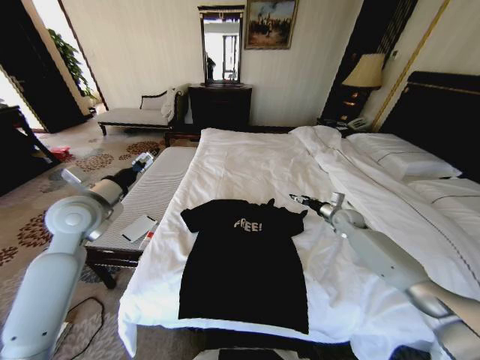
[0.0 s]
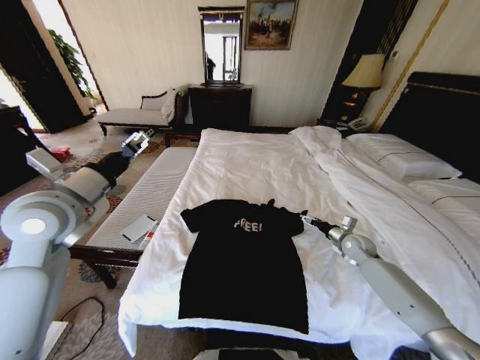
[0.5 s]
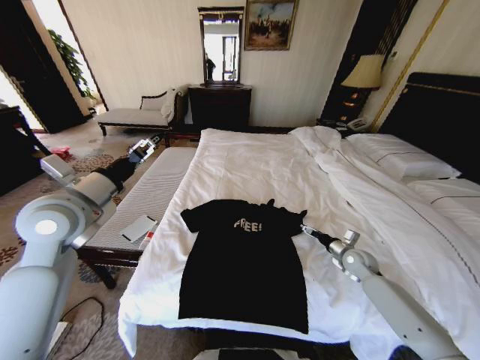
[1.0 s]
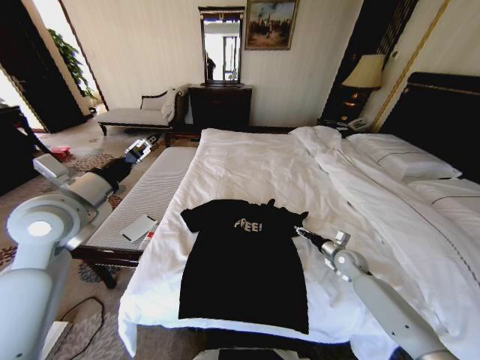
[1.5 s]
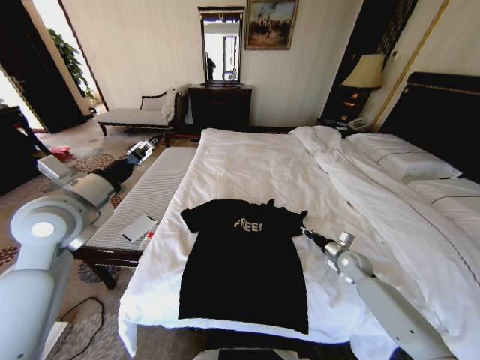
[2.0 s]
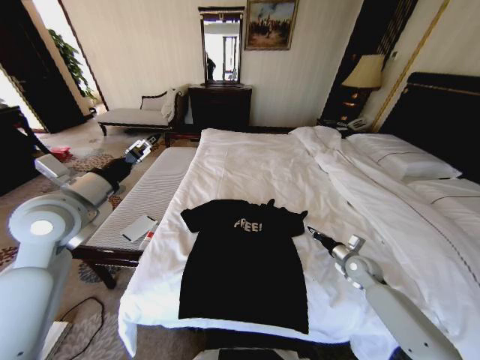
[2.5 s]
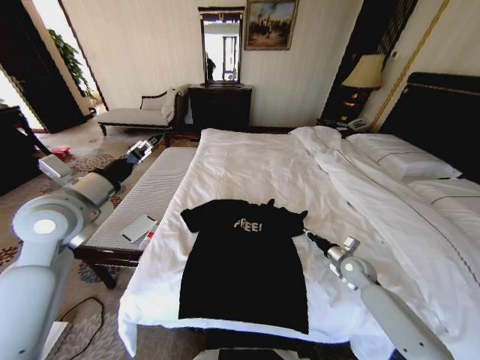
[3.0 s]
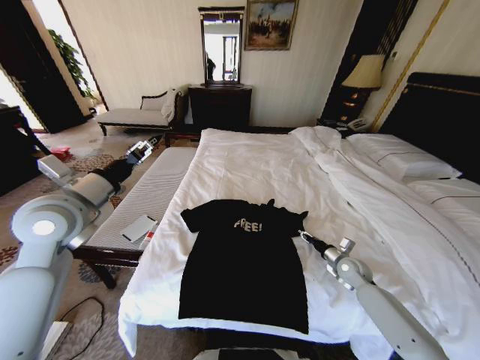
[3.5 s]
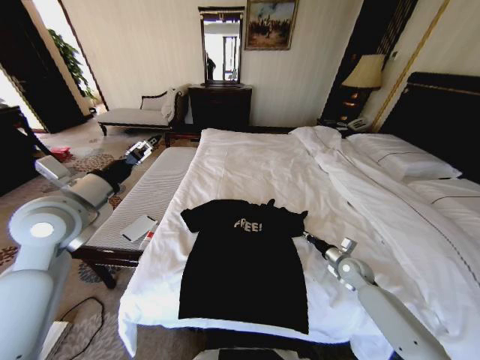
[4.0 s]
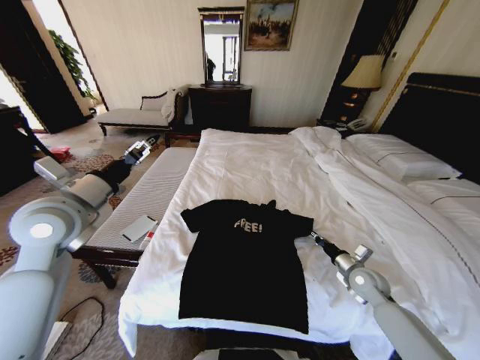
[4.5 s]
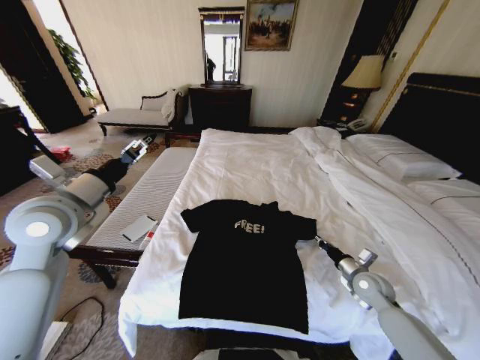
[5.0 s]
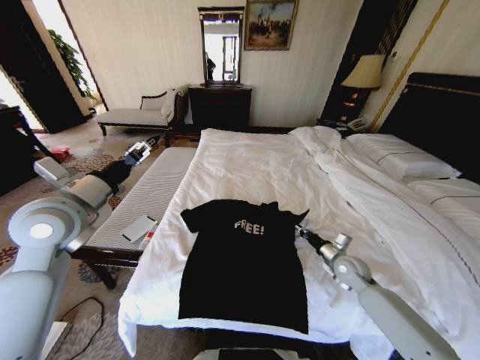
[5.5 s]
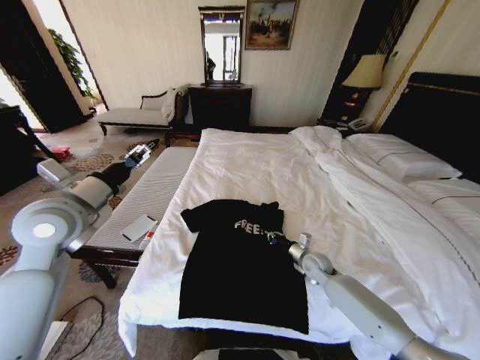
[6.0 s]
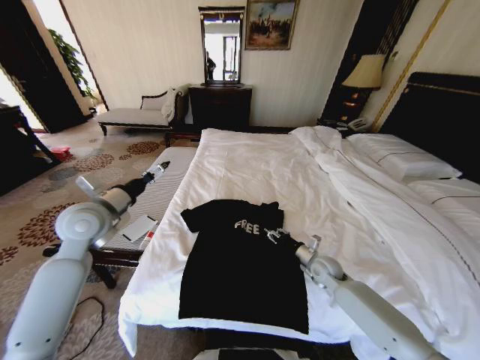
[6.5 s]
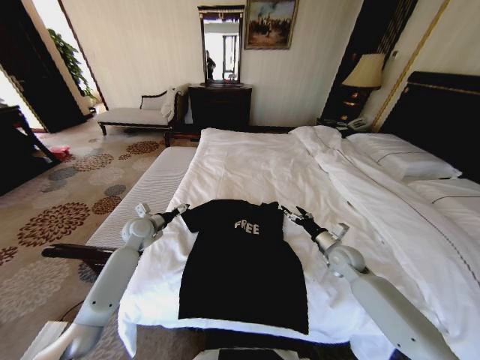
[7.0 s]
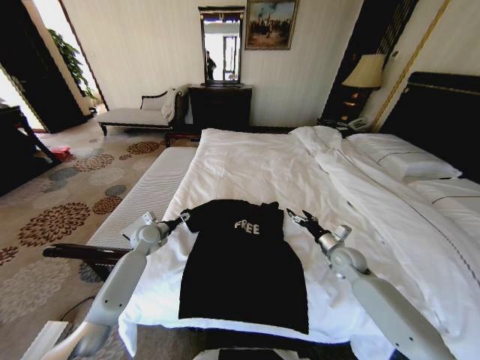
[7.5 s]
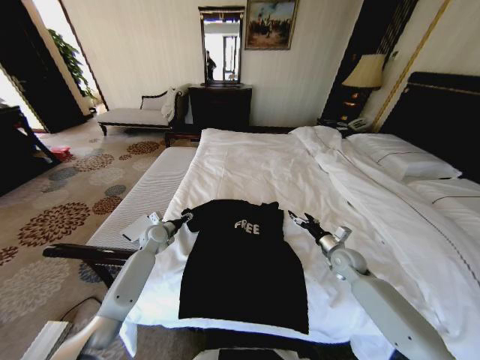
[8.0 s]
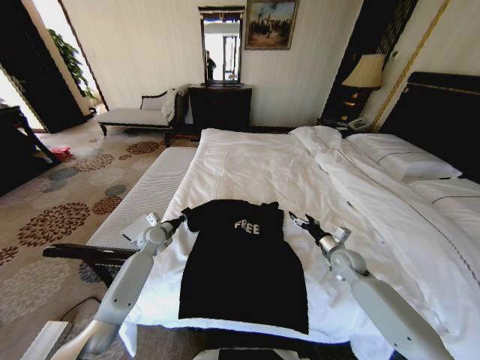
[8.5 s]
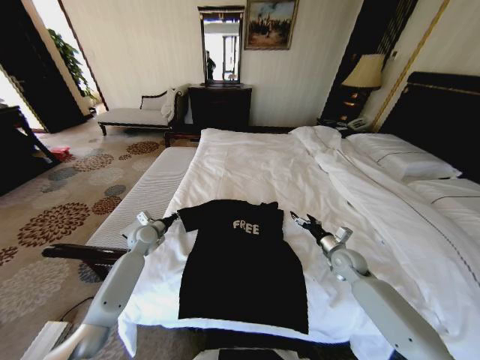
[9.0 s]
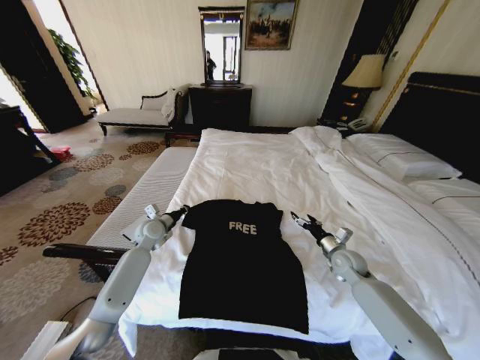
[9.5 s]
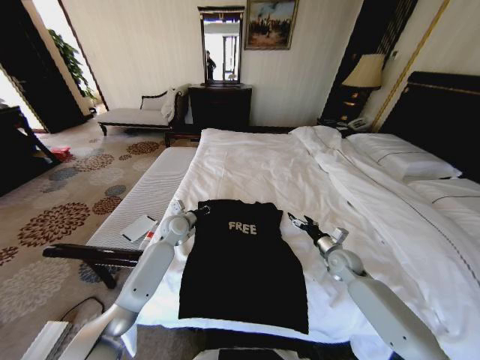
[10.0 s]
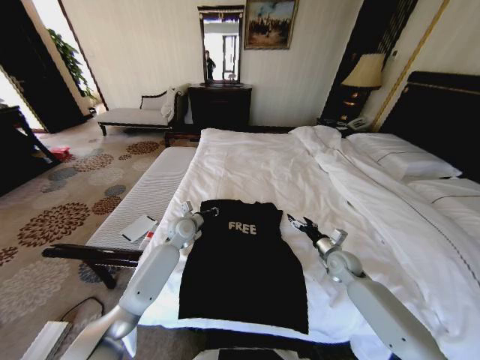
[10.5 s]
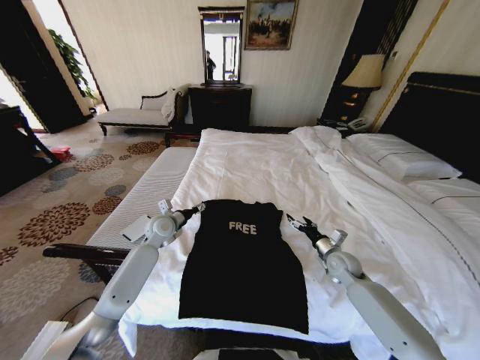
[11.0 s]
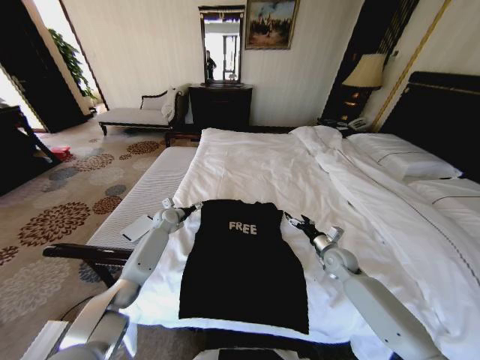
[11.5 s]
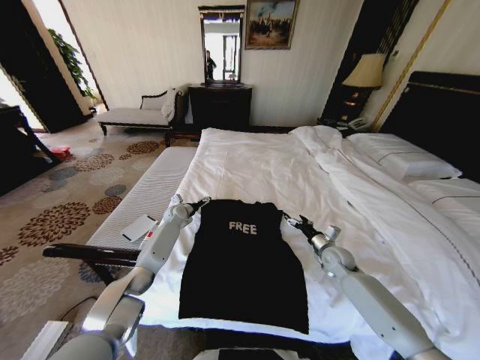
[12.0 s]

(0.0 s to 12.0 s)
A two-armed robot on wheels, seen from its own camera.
Task of the whole recording: Fold the clothes on the bed.
0.0 s - 2.0 s: The right gripper goes some 15 cm backward and downward, and closes up. Meanwhile the left gripper moves about 5 cm.
2.0 s - 4.0 s: There are only small adjustments of the grippers.
4.0 s - 6.0 s: The right gripper goes about 10 cm to the left.
6.0 s - 8.0 s: The left gripper travels downward and forward by roughly 30 cm, while the right gripper is displaced to the right by roughly 10 cm, and opens up.
8.0 s - 10.0 s: The left gripper is displaced to the right by approximately 10 cm, and closes.
10.0 s - 12.0 s: The left gripper is displaced forward and downward by some 10 cm, and opens.

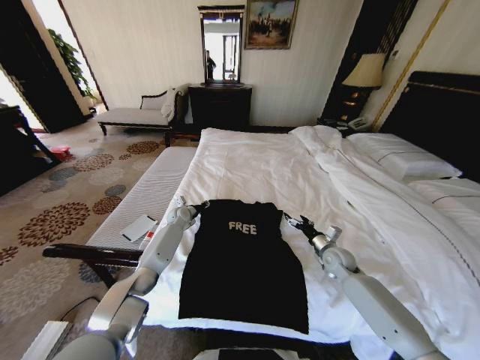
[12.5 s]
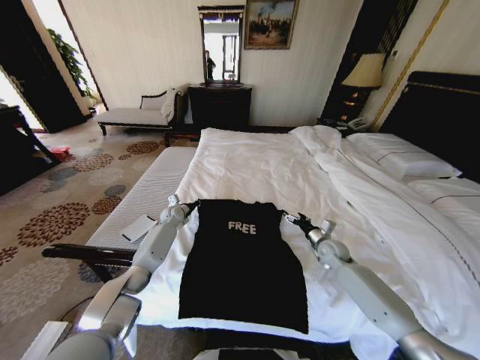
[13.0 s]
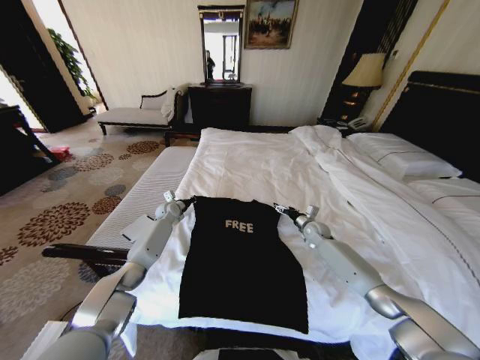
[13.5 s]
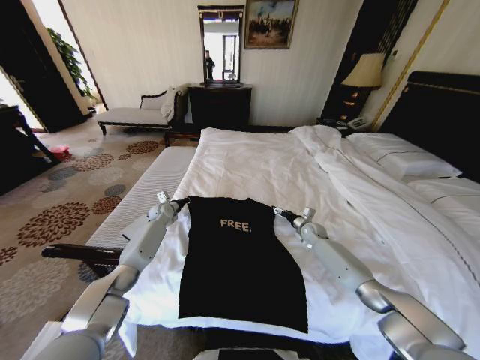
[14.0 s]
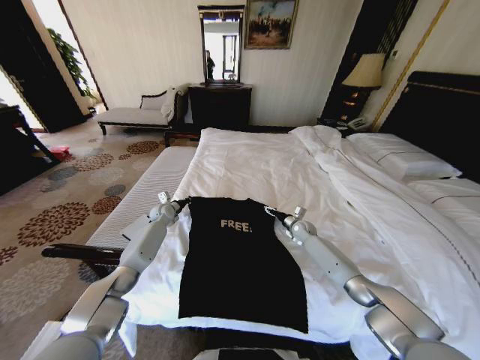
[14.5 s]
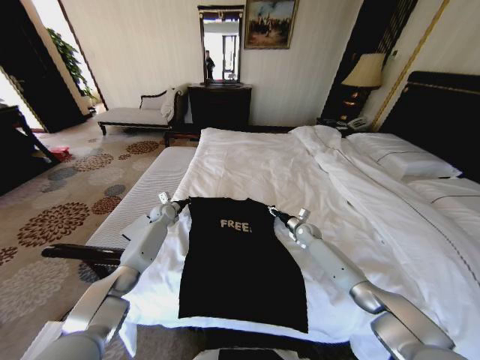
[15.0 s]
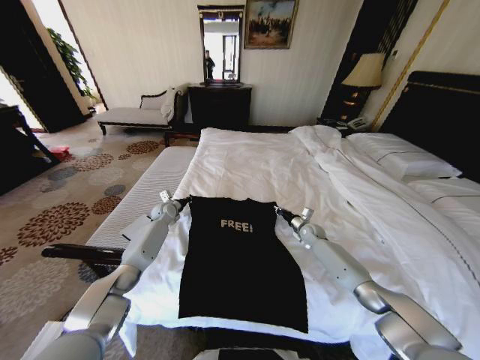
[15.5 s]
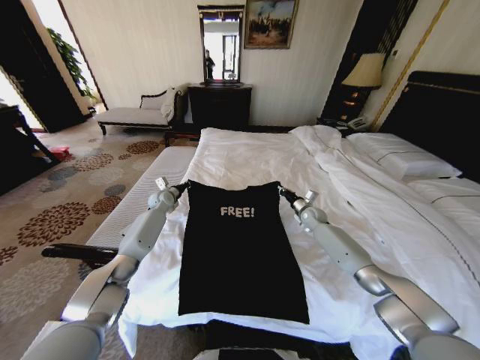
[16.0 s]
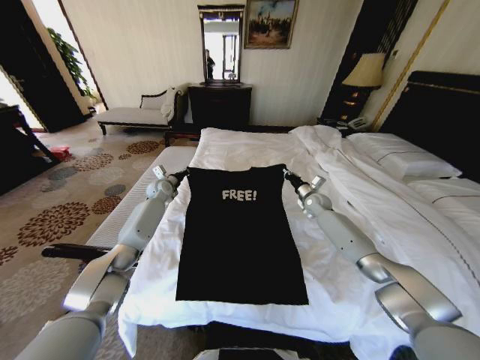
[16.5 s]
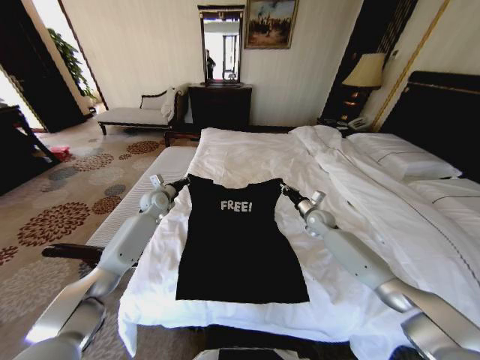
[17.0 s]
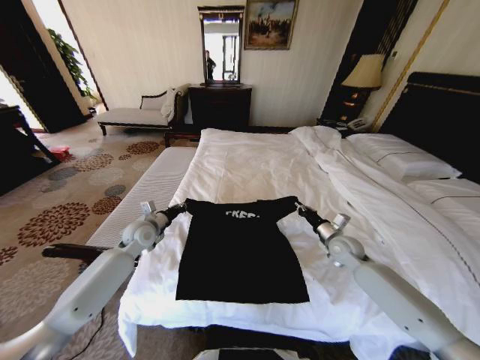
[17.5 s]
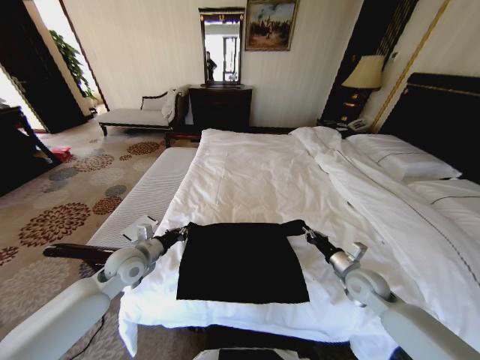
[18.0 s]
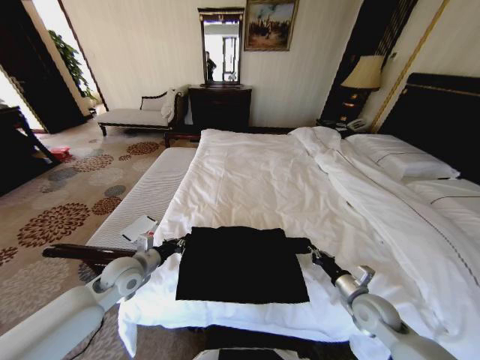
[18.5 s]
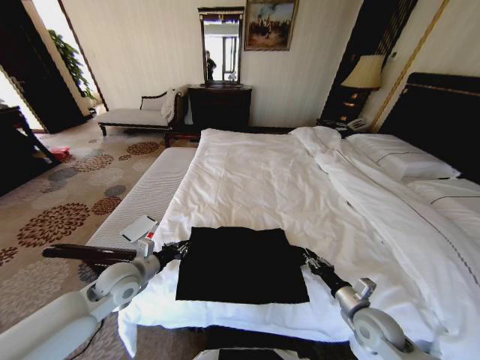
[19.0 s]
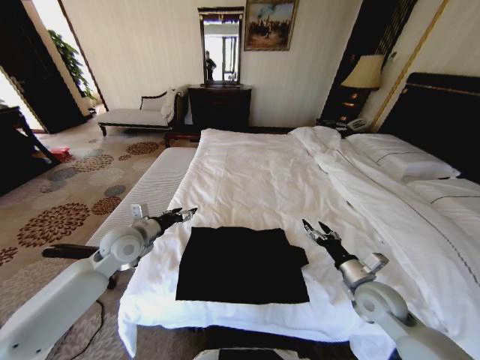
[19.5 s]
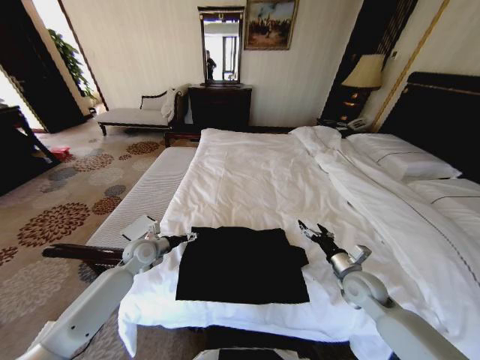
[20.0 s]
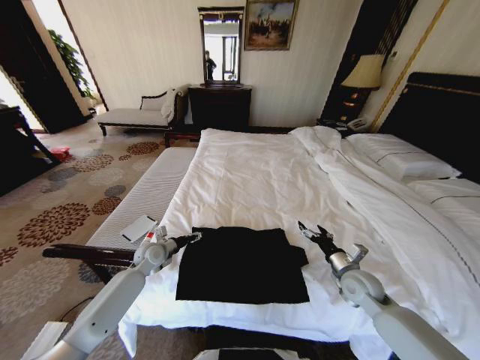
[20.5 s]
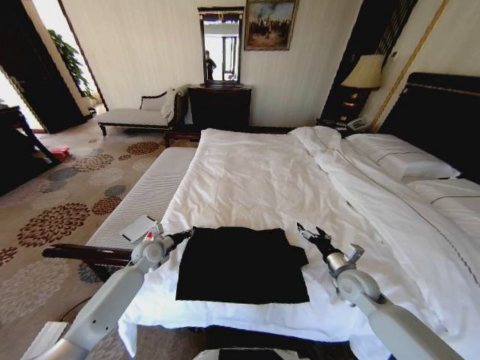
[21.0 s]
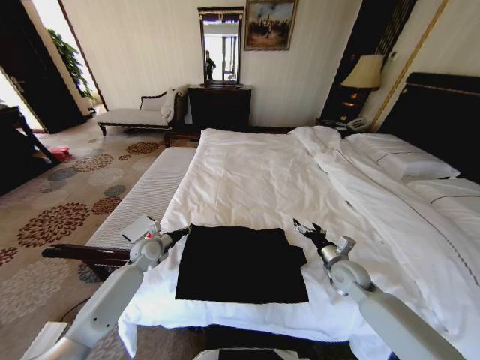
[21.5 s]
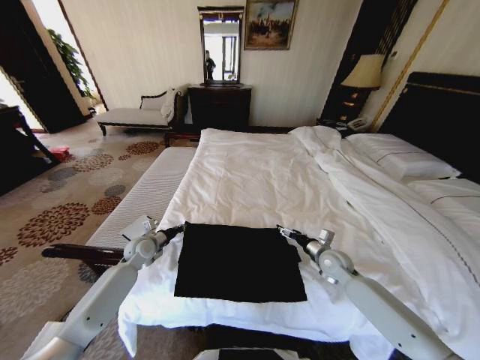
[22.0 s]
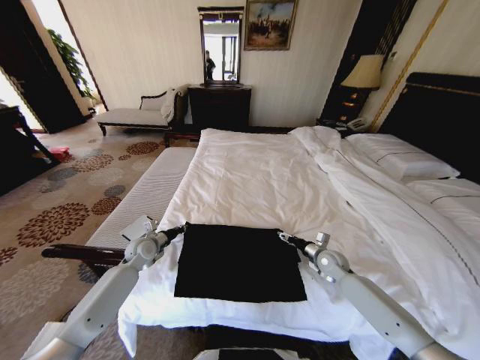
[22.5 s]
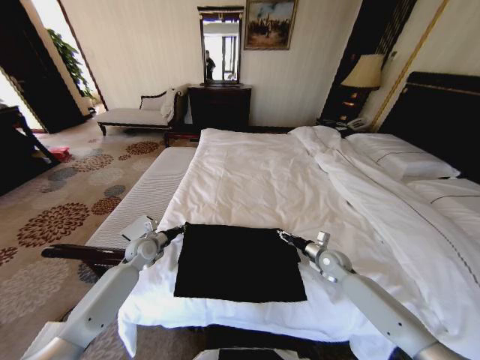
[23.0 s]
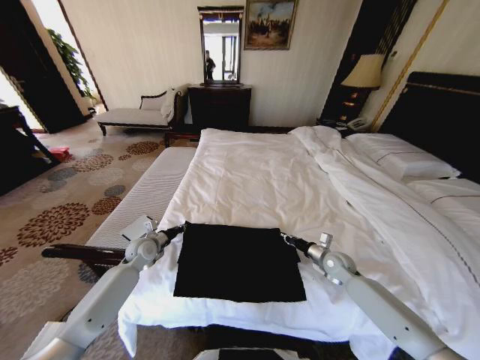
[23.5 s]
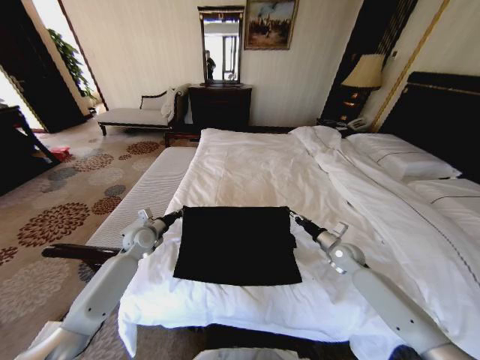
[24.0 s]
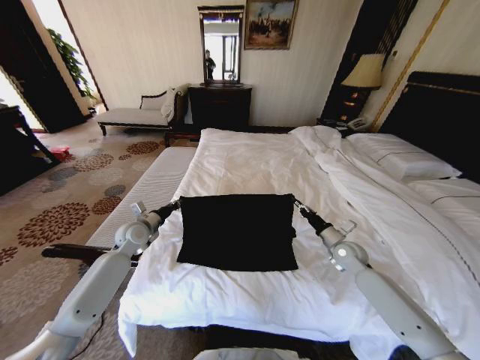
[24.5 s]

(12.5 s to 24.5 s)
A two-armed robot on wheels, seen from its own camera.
Task of the whole recording: Fold the clothes on the bed.
12.5 s - 14.5 s: The left gripper heads to the left, covering roughly 5 cm, and closes up. Meanwhile the right gripper moves forward, about 15 cm.
14.5 s - 16.5 s: The grippers both shift upward by about 10 cm. The right gripper closes its fingers.
16.5 s - 18.5 s: Both grippers travel together backward, about 35 cm.
18.5 s - 20.5 s: The left gripper goes some 15 cm forward and downward, and opens up. Meanwhile the right gripper shifts some 5 cm forward, and opens its fingers.
20.5 s - 22.5 s: The left gripper closes its fingers, while the right gripper travels forward and downward by about 10 cm.
22.5 s - 24.5 s: Both grippers travel together upward, approximately 5 cm. The right gripper closes up.

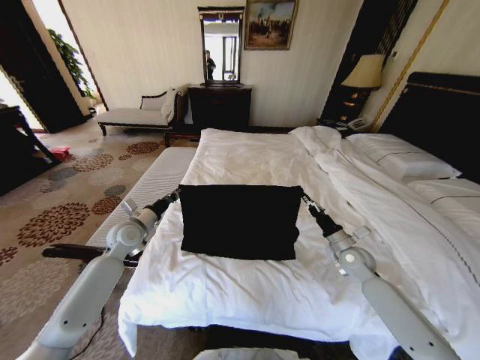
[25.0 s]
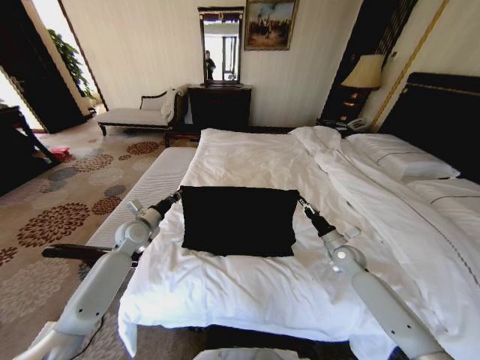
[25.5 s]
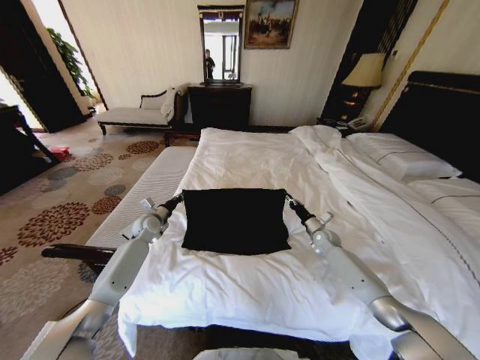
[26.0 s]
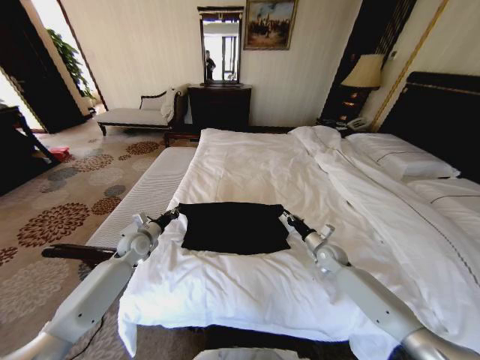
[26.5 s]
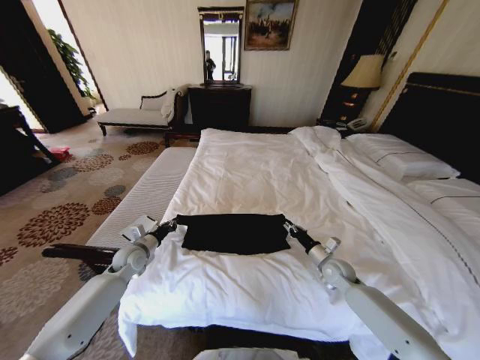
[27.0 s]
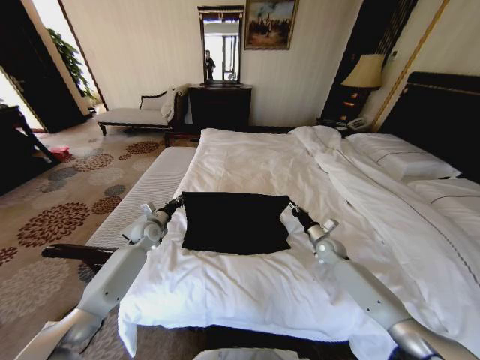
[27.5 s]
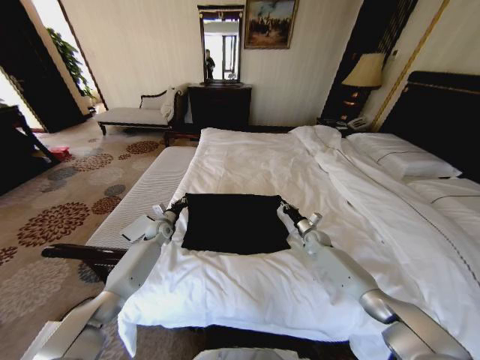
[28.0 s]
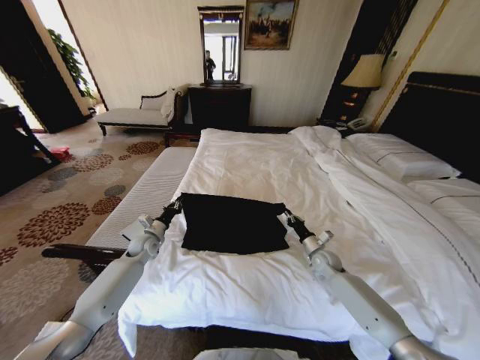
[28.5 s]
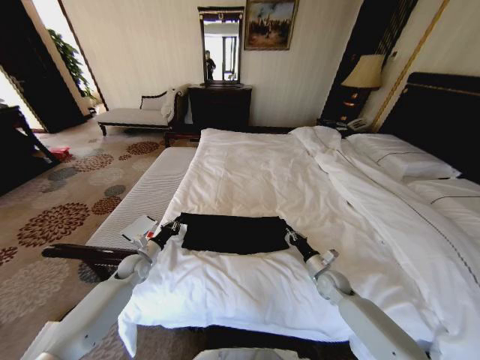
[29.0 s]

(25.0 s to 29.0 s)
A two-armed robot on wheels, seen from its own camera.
Task of the whole recording: Fold the clothes on the bed.
25.0 s - 27.0 s: The two grippers go about 10 cm downward. The left gripper travels forward and back again, about 10 cm each way, while the right gripper moves roughly 10 cm forward and comes back.
27.0 s - 29.0 s: The left gripper heads downward, covering approximately 5 cm, and moves about 15 cm forward and comes back. The right gripper moves approximately 15 cm forward and comes back.
